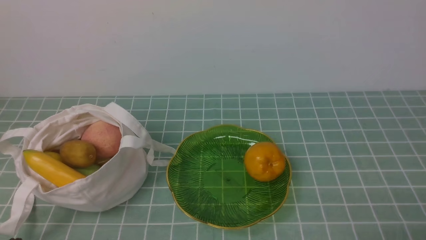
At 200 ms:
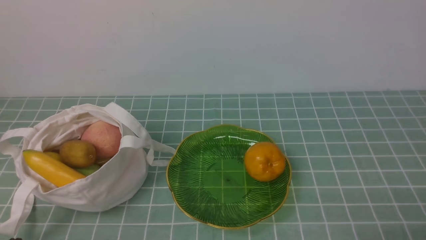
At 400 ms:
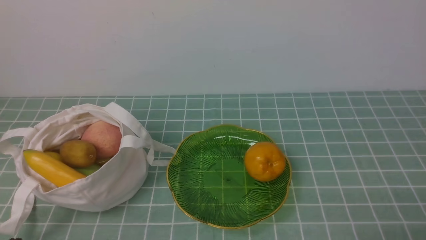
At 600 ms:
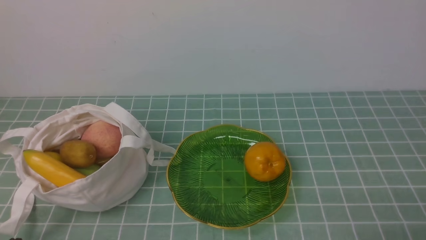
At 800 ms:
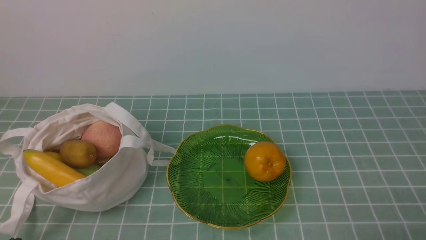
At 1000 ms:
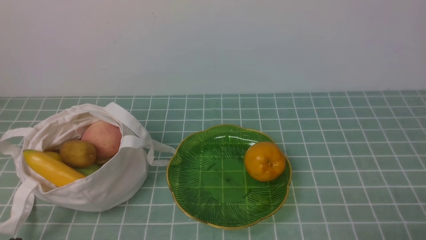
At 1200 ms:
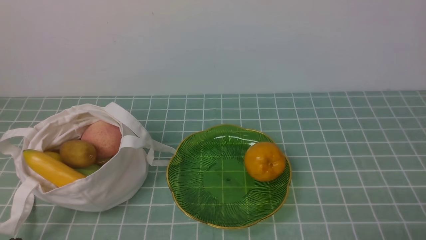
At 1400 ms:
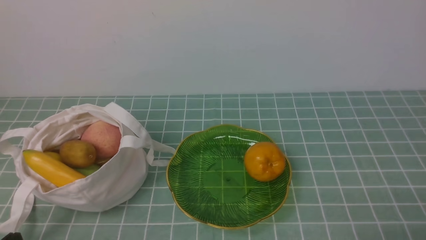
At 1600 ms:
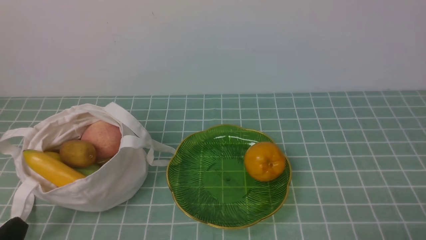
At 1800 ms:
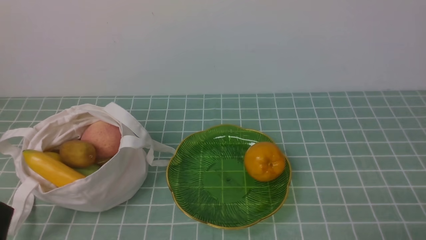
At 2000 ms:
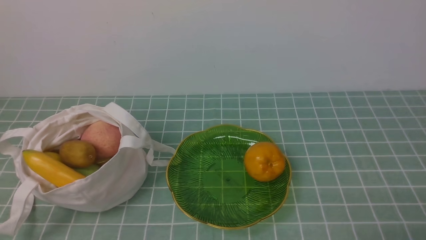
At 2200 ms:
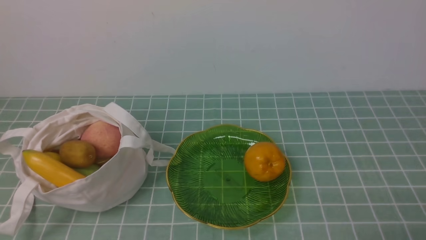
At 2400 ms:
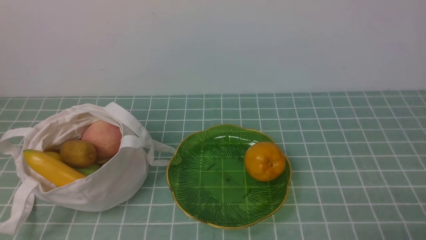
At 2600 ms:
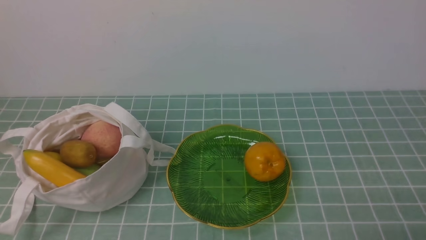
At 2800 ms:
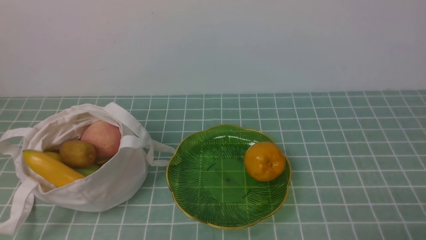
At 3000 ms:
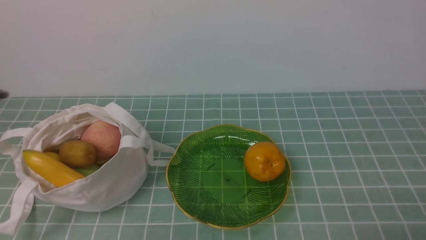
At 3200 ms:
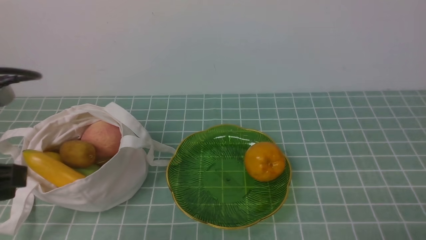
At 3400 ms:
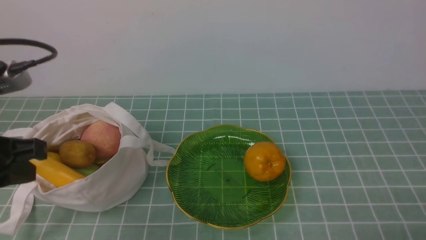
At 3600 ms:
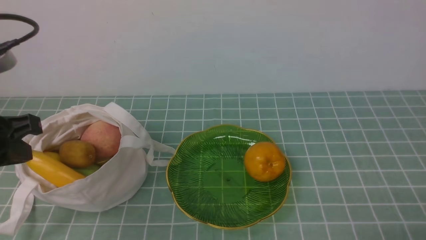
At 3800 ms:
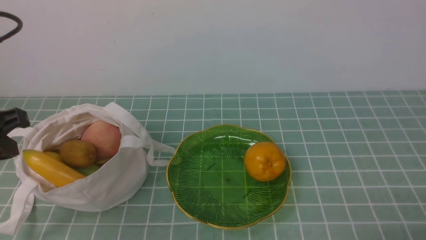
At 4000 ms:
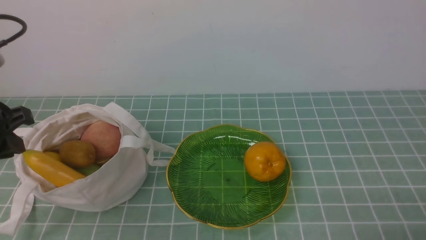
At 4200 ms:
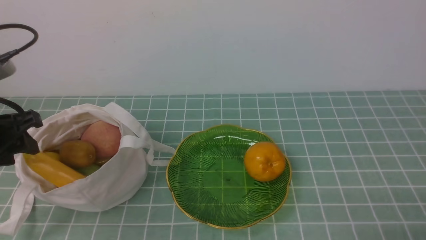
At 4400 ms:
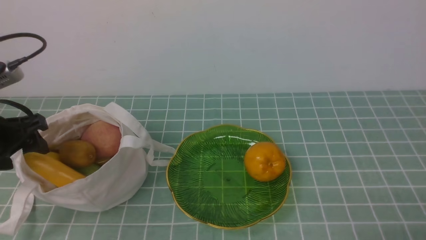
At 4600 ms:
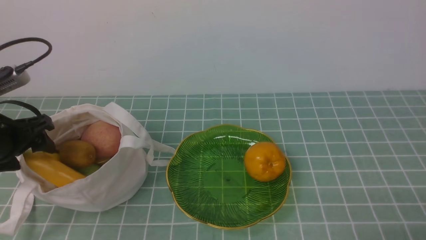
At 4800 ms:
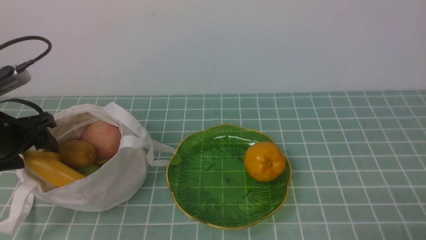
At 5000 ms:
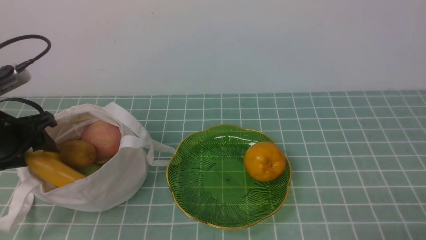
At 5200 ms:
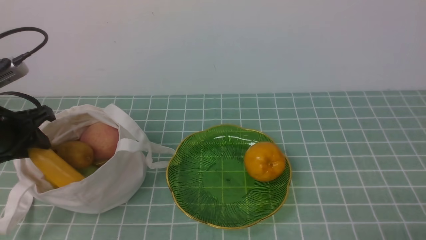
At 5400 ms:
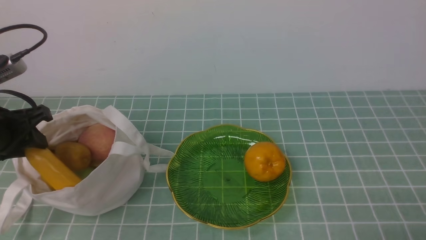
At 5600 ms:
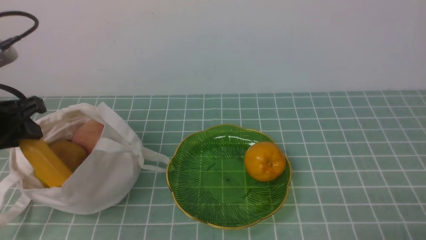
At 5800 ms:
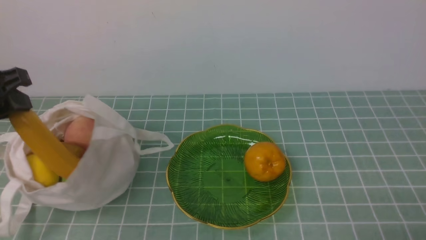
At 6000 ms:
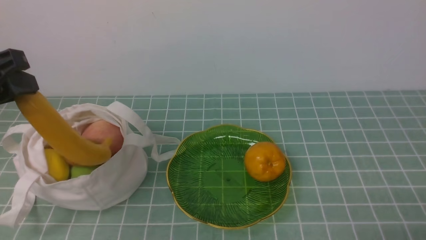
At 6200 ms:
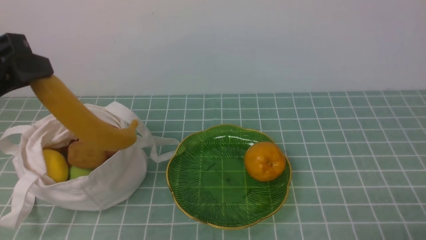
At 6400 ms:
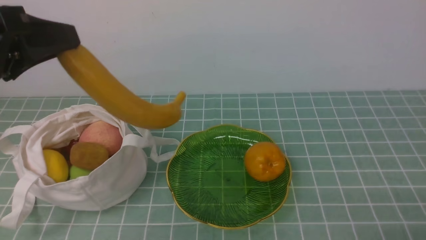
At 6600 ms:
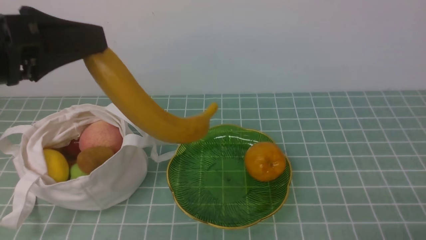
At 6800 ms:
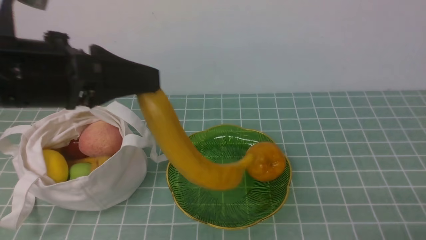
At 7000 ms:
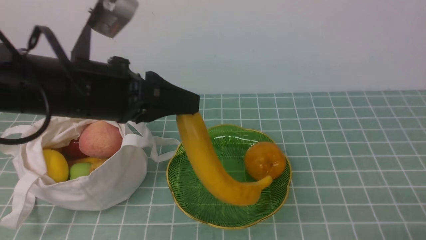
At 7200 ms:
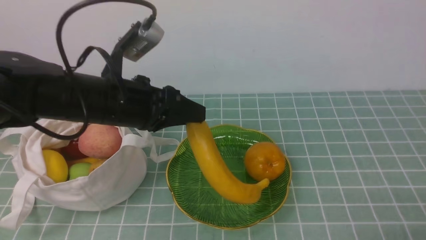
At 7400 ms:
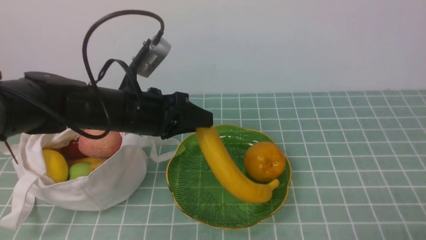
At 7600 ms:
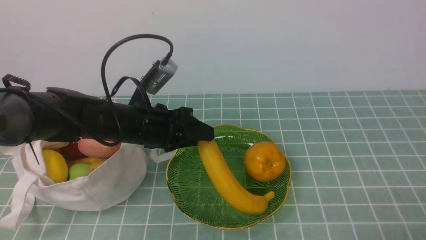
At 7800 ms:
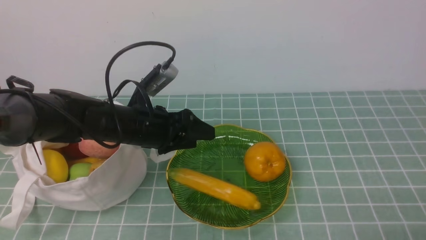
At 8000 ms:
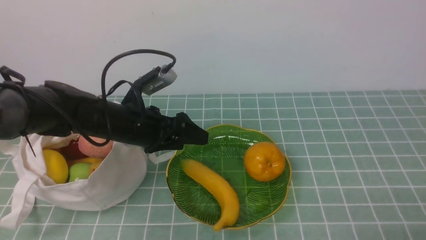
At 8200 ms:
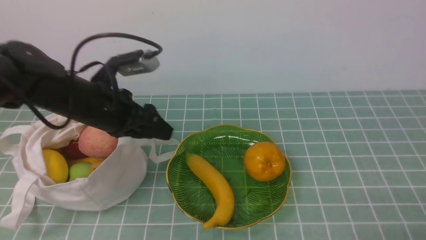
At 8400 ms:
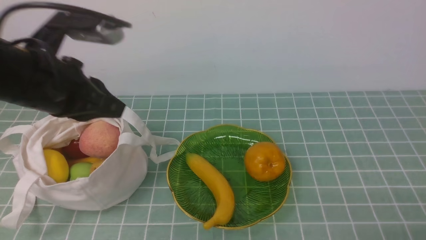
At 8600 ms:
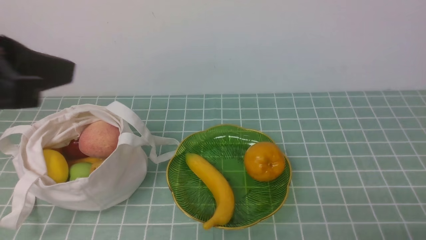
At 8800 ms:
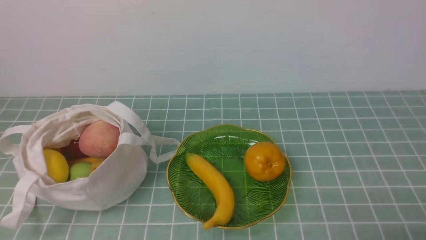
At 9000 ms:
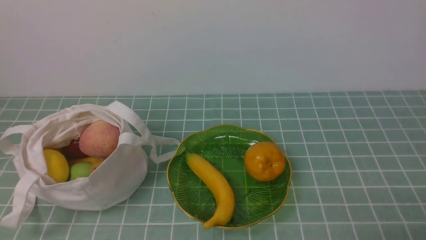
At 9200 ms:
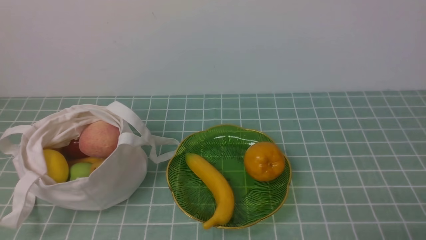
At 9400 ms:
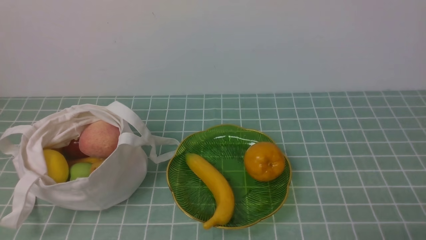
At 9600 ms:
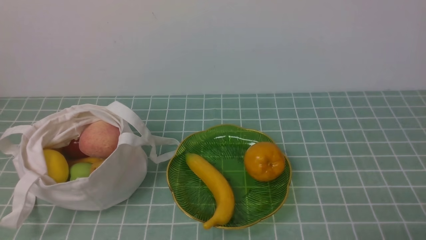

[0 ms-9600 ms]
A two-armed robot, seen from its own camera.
Step, 0 ms to 5600 ms: use the left arm to grab a banana from the bag.
Step, 5800 ms to 8000 ms: use the left arm to put the banana into the empty plate on the right.
1600 ms to 3200 ms: The left gripper is displaced upward and forward by about 20 cm.
3200 ms to 4800 ms: The left gripper travels forward, downward and to the left by approximately 15 cm, and opens.
4800 ms to 6400 ms: The left gripper goes about 15 cm upward, to the right and backward, and closes.
6400 ms to 8000 ms: The left gripper is displaced downward, forward and to the right by roughly 25 cm, and opens up.
8000 ms to 9600 ms: The left gripper moves backward, approximately 35 cm, and closes its fingers.

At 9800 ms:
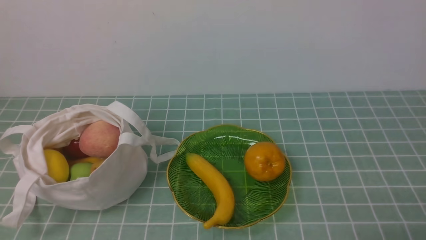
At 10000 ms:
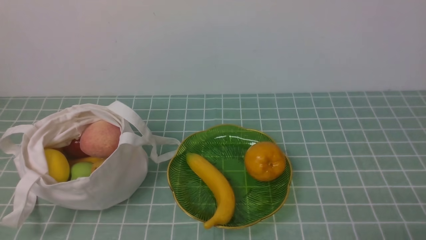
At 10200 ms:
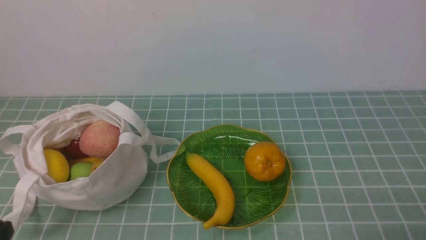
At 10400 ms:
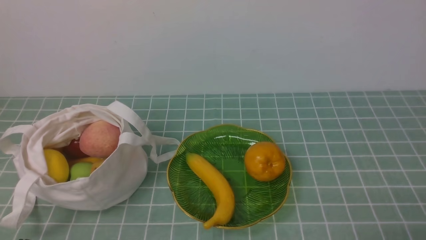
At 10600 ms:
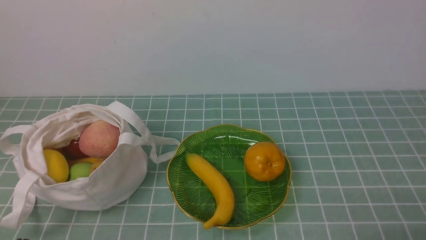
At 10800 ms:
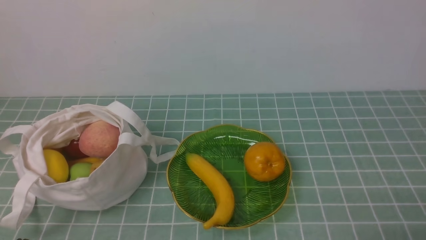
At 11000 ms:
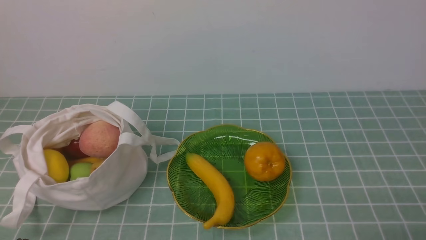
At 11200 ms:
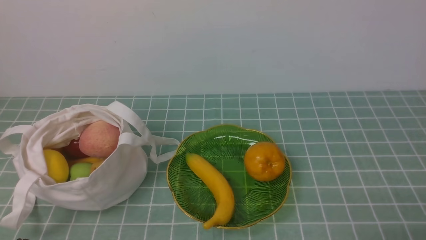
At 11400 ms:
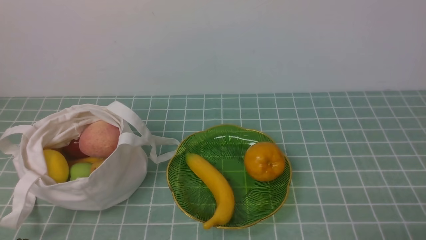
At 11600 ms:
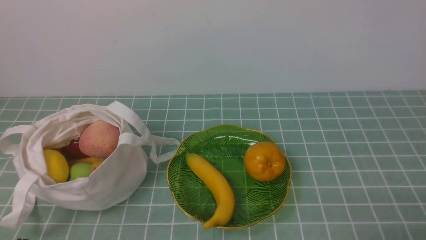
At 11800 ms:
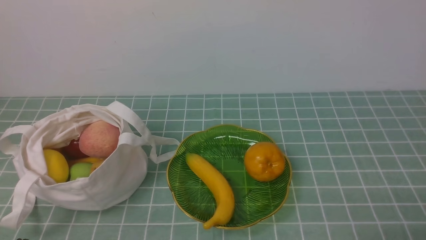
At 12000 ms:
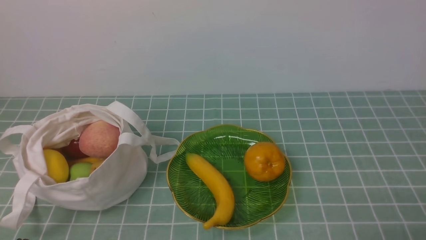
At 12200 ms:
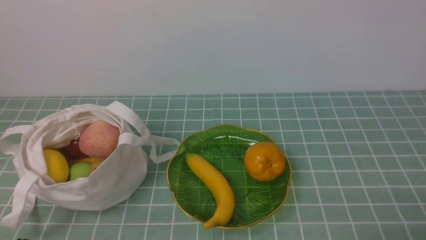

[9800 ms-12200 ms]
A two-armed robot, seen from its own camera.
11000 ms to 12200 ms: The two grippers keep their place.

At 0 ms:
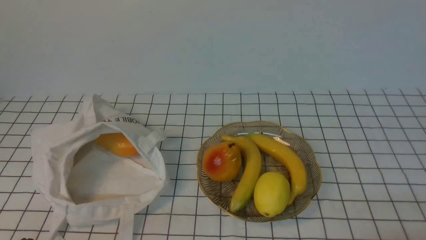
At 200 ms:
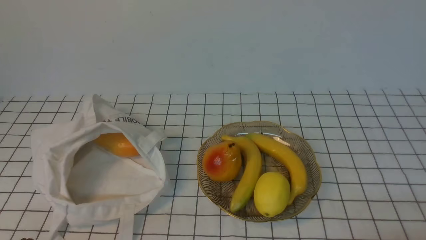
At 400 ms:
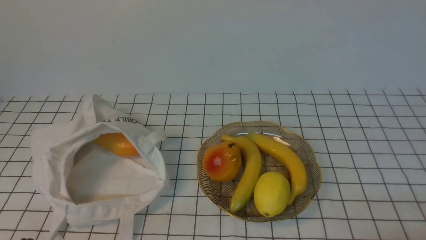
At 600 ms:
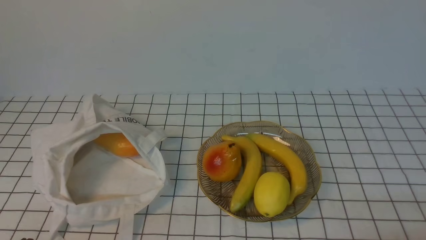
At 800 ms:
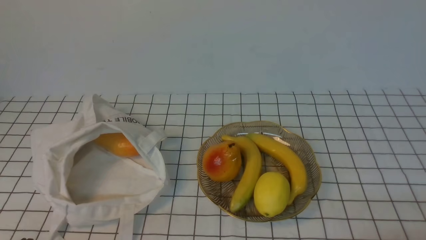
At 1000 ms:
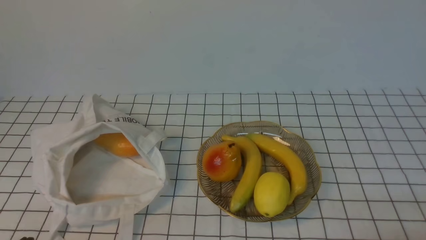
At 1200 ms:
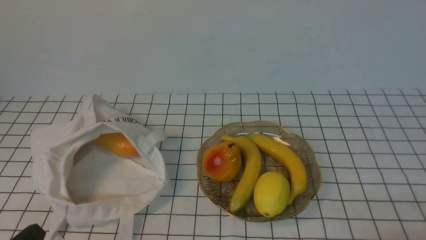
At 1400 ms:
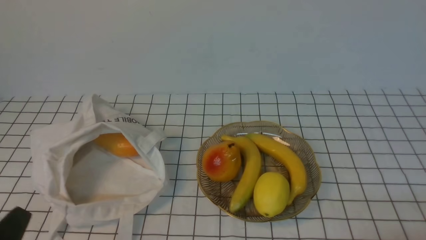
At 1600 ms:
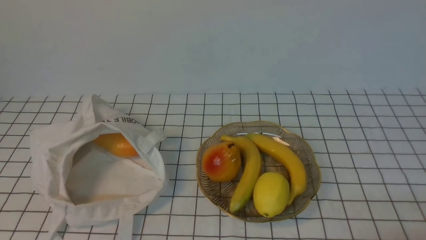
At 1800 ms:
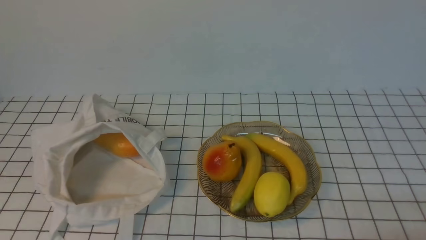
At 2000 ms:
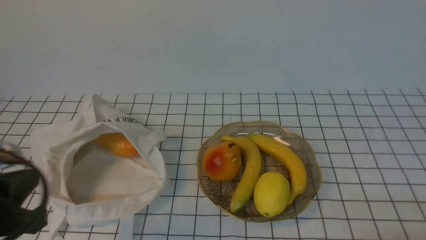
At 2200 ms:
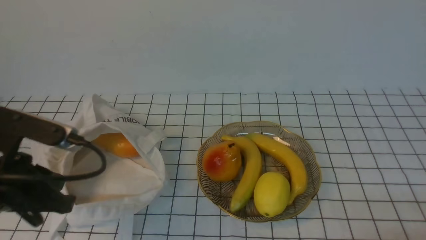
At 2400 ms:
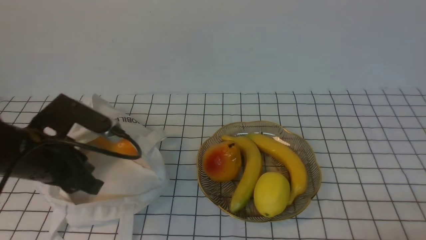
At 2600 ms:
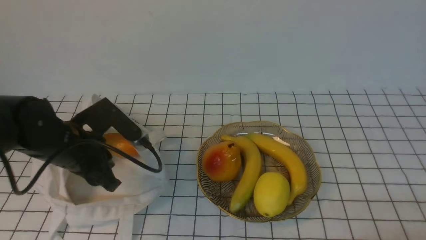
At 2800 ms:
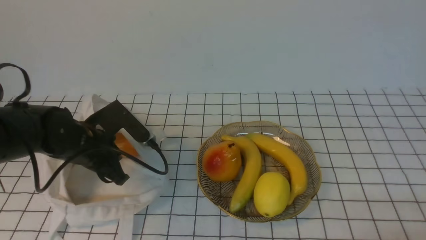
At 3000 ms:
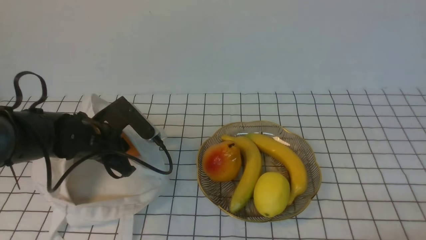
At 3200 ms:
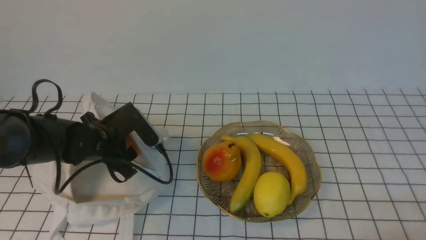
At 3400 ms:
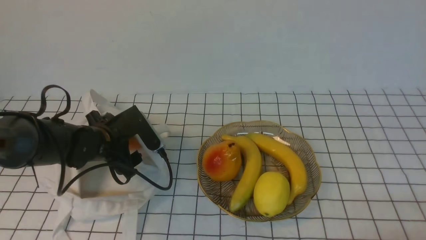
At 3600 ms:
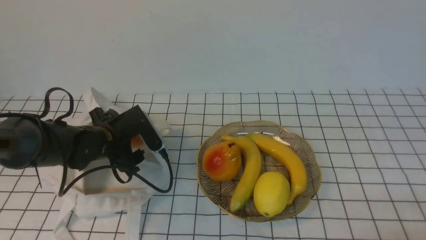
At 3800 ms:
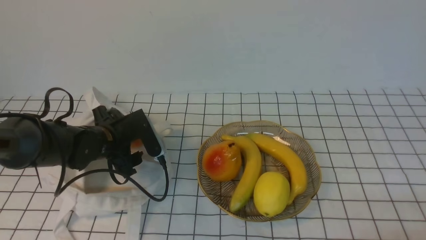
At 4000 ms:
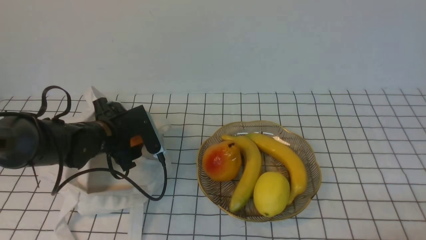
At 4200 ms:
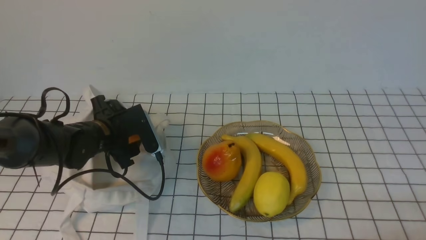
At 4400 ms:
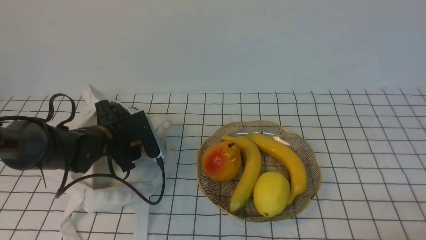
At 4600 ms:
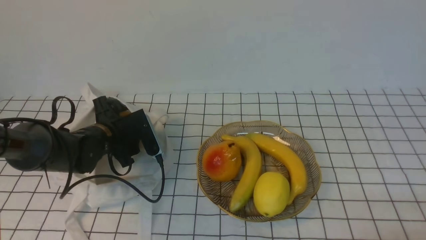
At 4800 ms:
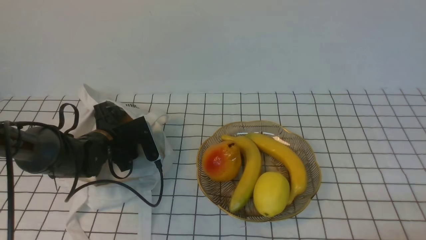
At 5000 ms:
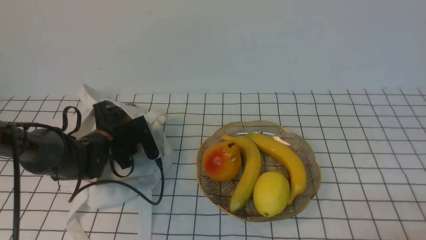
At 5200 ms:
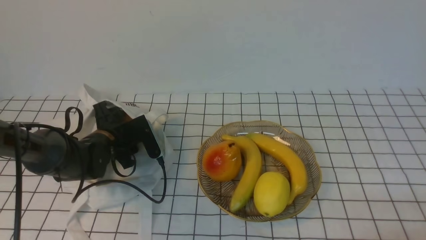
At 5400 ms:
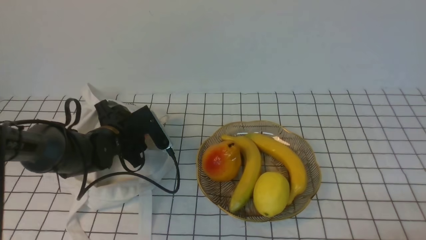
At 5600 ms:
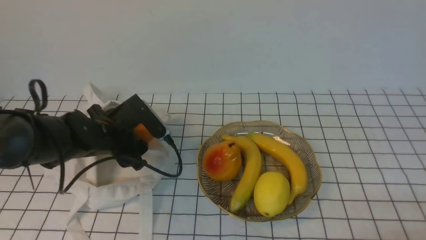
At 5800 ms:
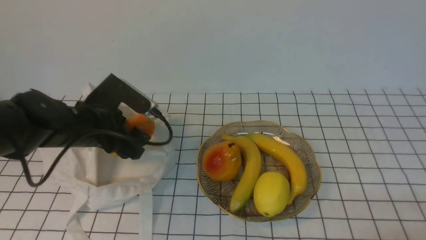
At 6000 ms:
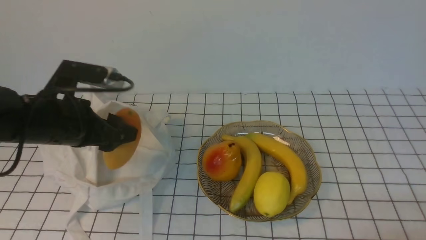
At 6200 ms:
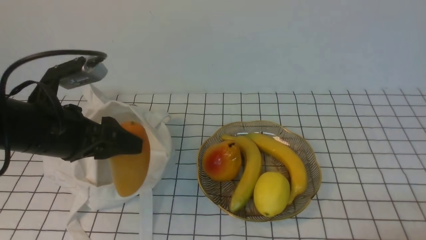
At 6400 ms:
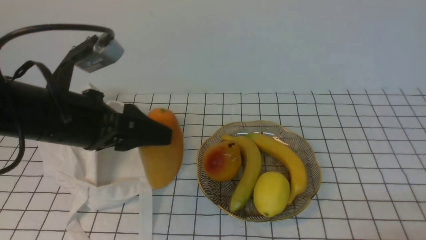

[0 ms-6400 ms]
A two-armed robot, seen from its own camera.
Step, 0 ms to 5400 ms: use the left arm to grab a mango from the bag.
1600 ms to 3200 ms: The left gripper shifts roughly 30 cm forward, and opens its fingers.
3200 ms to 4800 ms: The left gripper ends up roughly 5 cm from where it was, and opens up.
4800 ms to 6400 ms: The left gripper is displaced upward and backward by about 20 cm.
